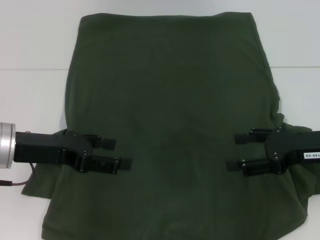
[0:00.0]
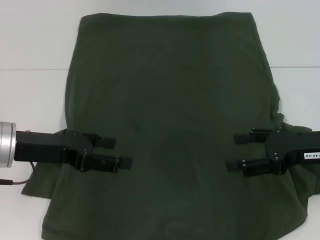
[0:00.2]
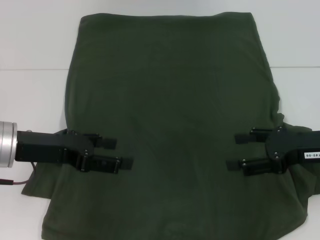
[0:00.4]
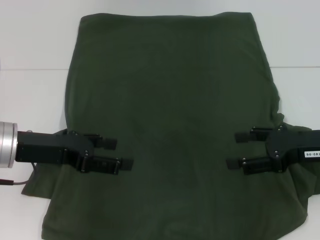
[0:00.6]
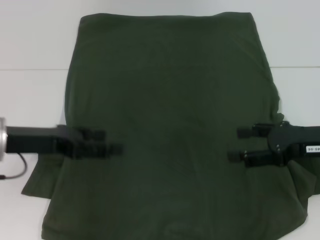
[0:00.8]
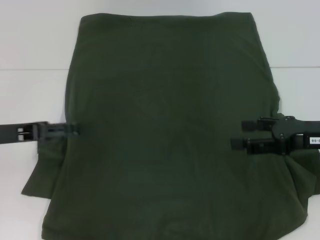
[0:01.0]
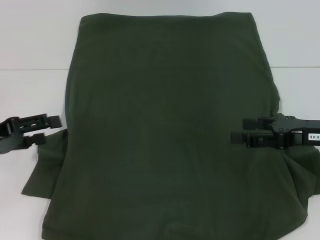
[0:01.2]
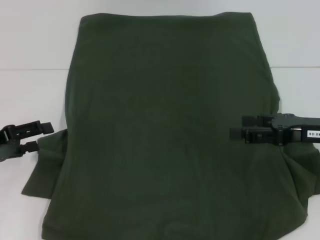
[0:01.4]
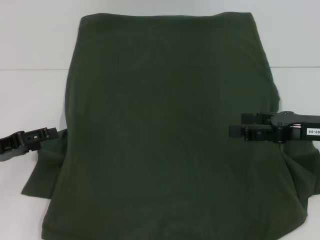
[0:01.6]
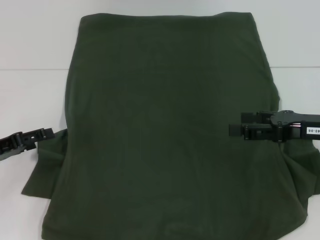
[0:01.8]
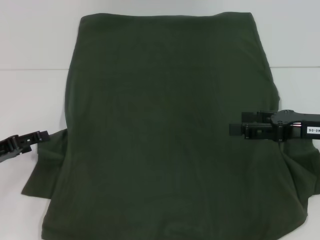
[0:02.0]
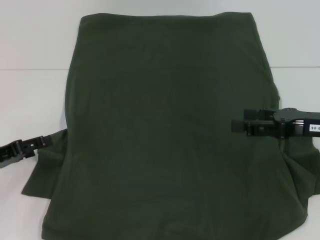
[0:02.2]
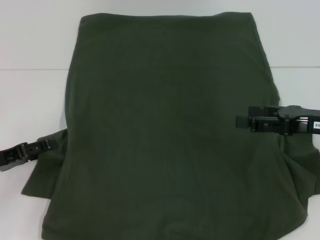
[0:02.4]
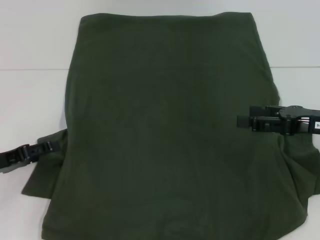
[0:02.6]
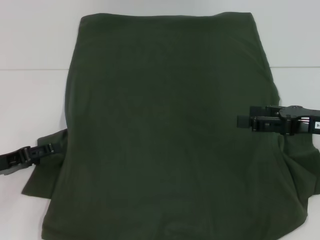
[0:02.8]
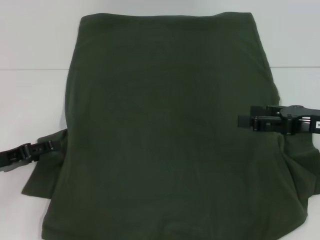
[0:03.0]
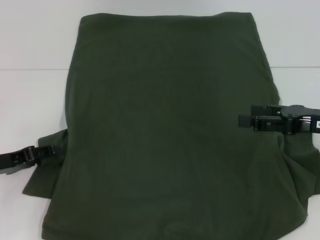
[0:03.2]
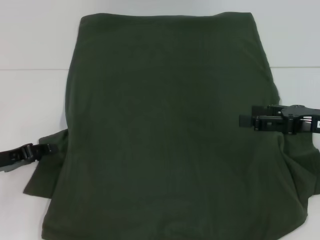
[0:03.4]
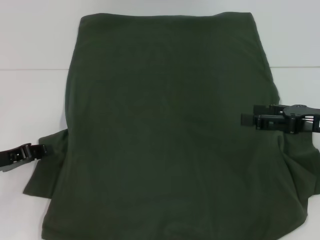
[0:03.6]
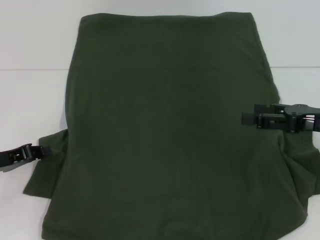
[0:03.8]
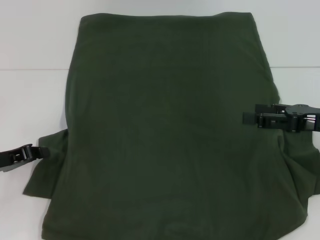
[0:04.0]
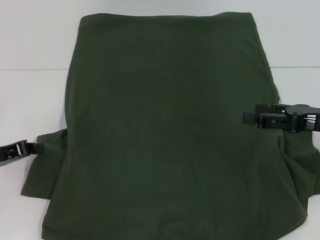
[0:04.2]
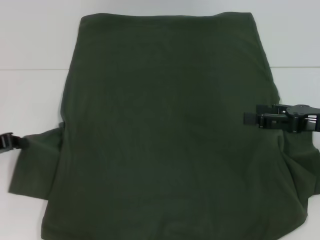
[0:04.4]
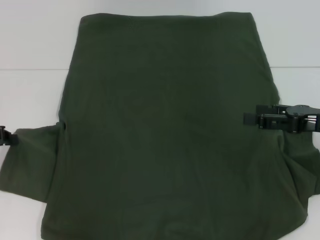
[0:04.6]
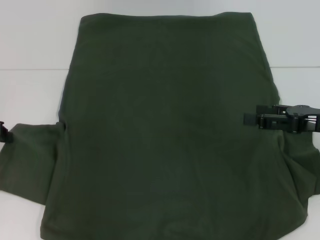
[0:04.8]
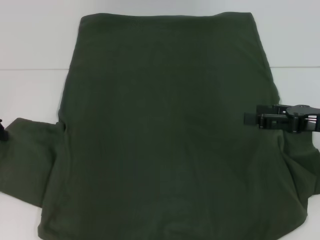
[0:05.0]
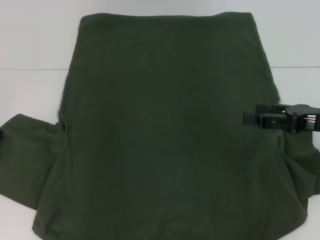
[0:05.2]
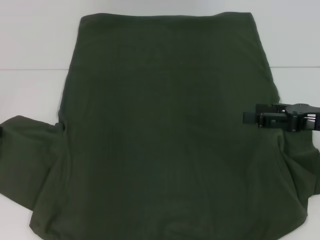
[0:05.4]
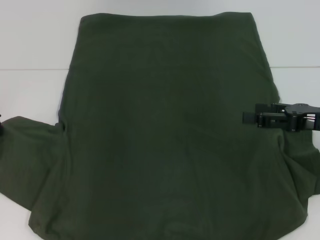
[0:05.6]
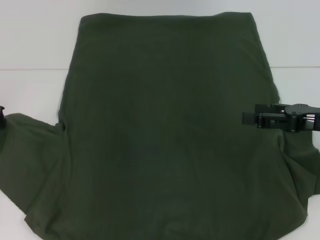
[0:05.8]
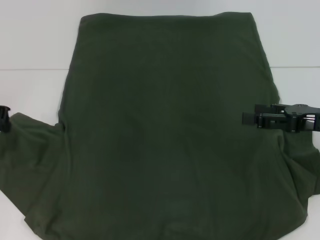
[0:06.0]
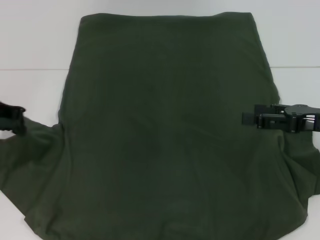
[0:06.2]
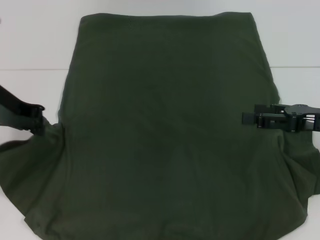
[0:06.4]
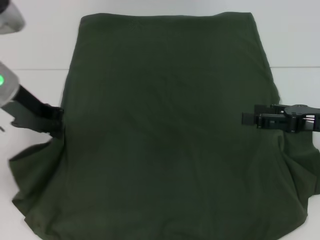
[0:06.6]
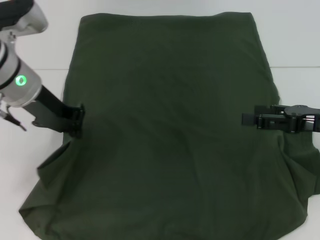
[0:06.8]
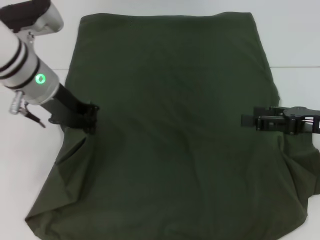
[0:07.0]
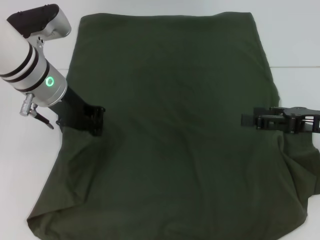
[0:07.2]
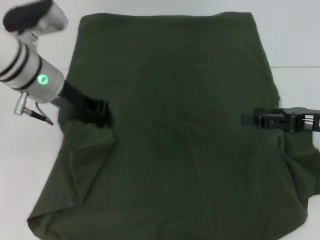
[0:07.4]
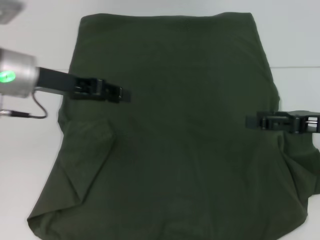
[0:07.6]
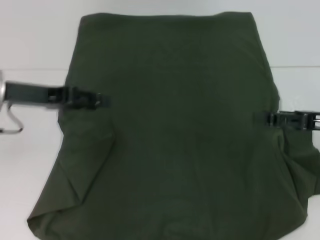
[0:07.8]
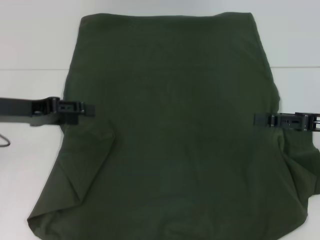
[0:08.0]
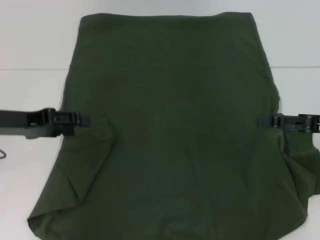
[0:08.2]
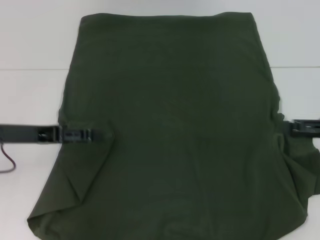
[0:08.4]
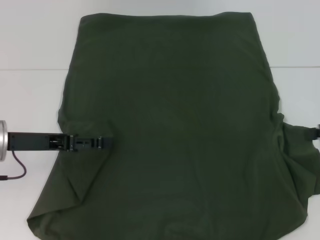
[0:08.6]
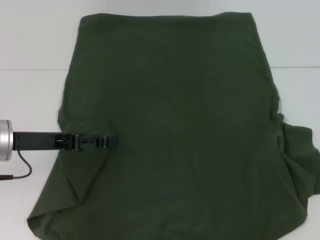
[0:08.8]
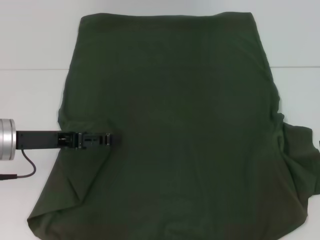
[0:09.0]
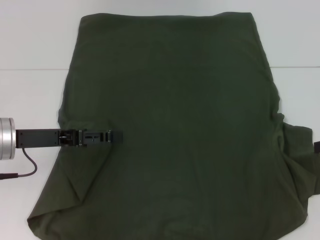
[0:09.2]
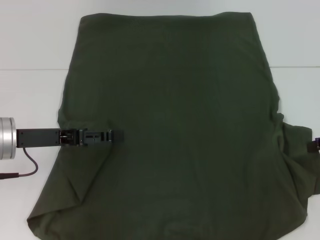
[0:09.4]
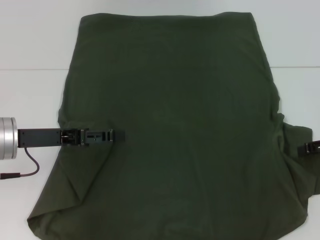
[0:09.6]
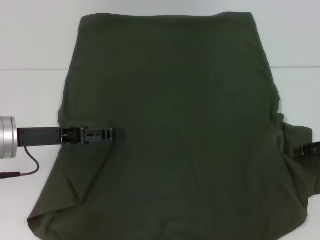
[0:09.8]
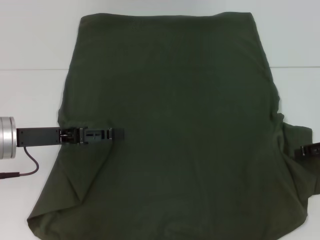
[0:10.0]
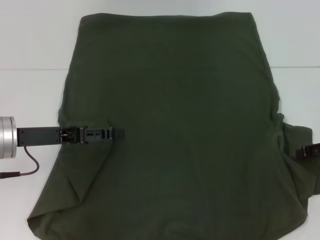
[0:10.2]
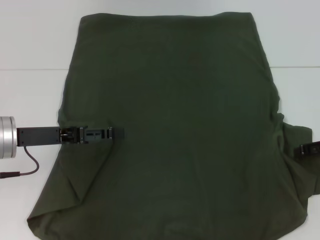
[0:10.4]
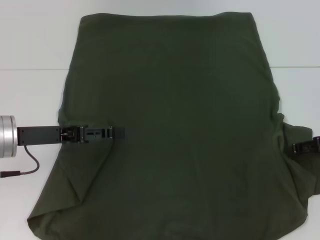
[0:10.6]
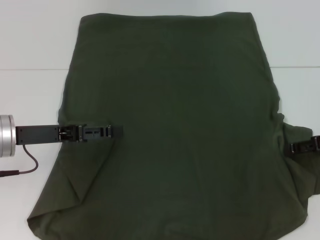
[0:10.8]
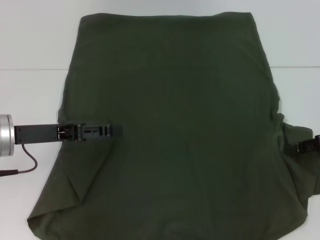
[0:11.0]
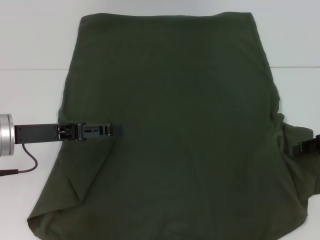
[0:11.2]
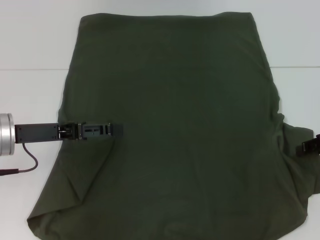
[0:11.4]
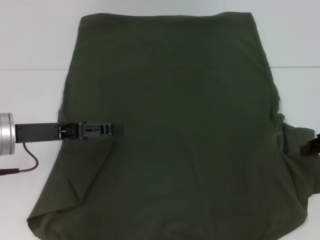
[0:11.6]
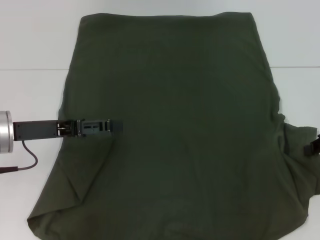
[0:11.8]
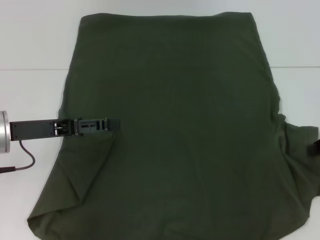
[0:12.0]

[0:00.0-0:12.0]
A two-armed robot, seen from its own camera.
Step, 0:00.0 to 0:07.6: Fold the bottom left sleeve with your left hand.
0:00.0 to 0:01.6: The left gripper heads to the left and downward, covering about 10 cm.
0:01.6 to 0:03.0: The grippers move only a little.
0:03.0 to 0:04.4: The left gripper closes up.
0:04.4 to 0:06.0: The left gripper goes some 10 cm upward and forward.
0:06.0 to 0:07.6: The left gripper is displaced to the right by roughly 10 cm.
0:07.6 to 0:09.0: The left gripper is displaced downward and backward by approximately 10 cm, and opens. The right gripper moves to the right, approximately 10 cm.
0:10.4 to 0:12.0: The right gripper closes its fingers.

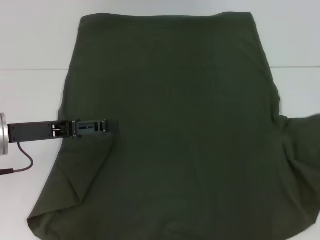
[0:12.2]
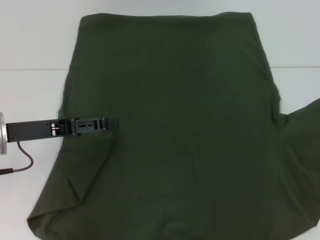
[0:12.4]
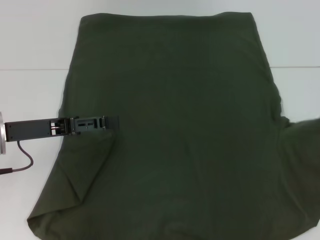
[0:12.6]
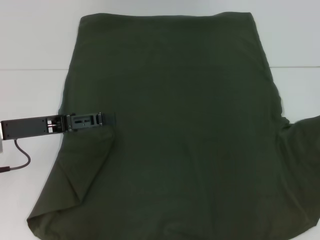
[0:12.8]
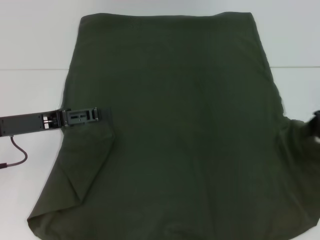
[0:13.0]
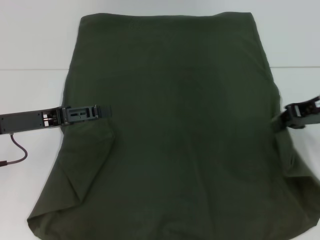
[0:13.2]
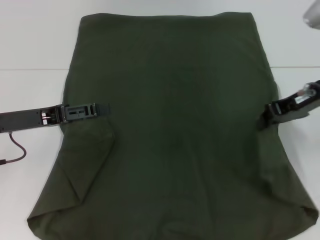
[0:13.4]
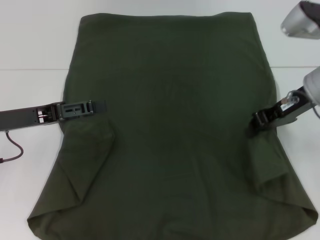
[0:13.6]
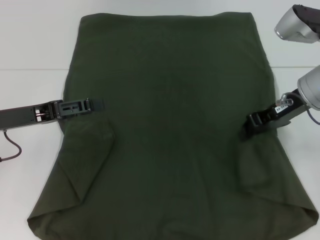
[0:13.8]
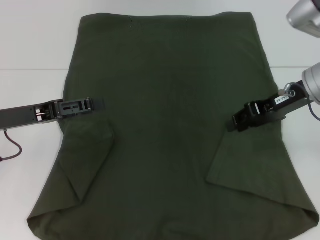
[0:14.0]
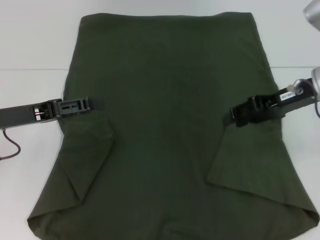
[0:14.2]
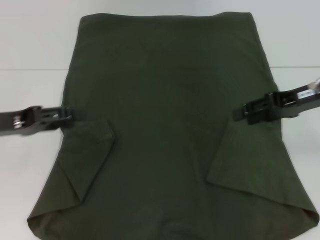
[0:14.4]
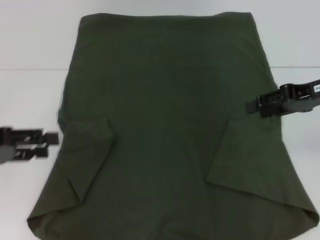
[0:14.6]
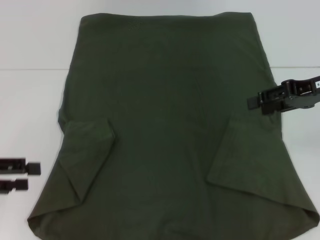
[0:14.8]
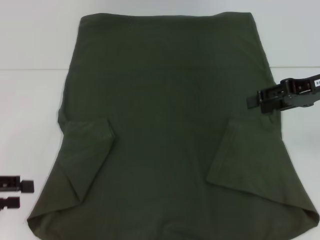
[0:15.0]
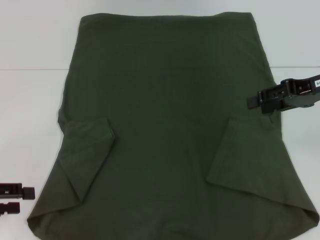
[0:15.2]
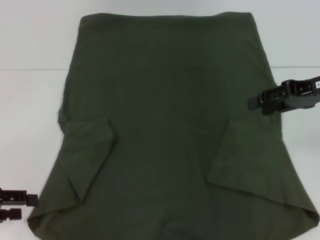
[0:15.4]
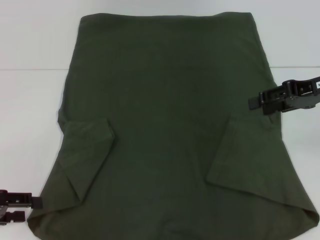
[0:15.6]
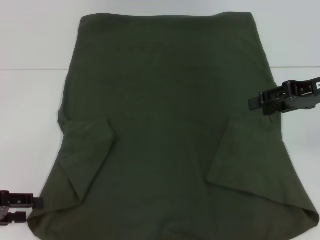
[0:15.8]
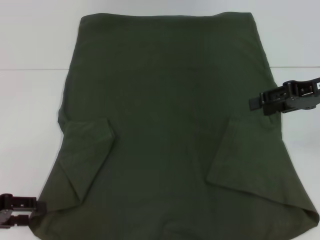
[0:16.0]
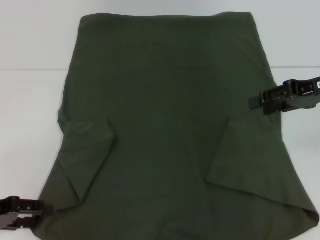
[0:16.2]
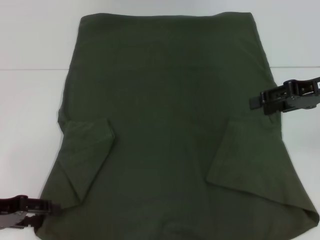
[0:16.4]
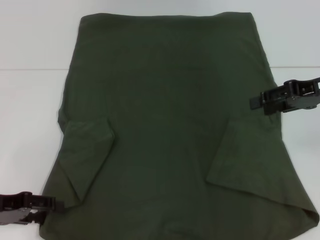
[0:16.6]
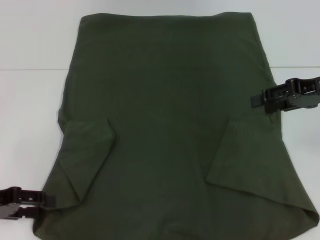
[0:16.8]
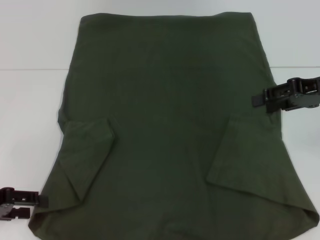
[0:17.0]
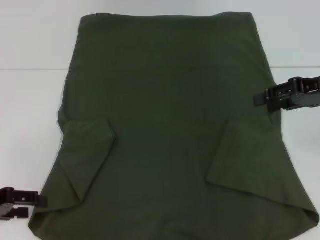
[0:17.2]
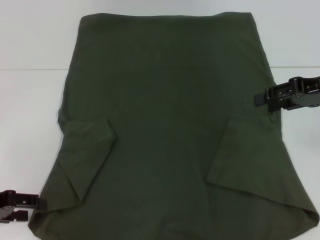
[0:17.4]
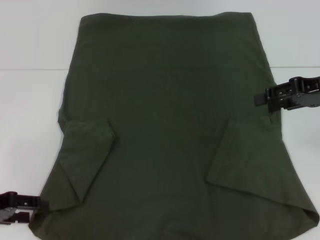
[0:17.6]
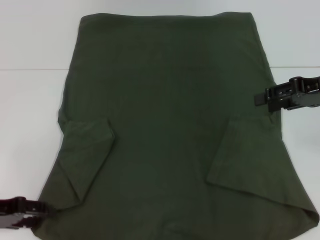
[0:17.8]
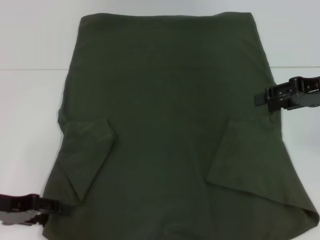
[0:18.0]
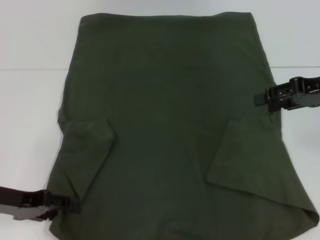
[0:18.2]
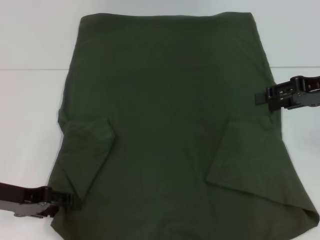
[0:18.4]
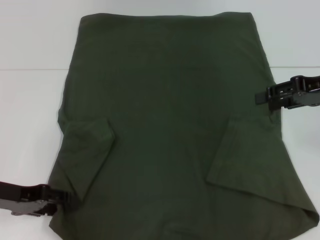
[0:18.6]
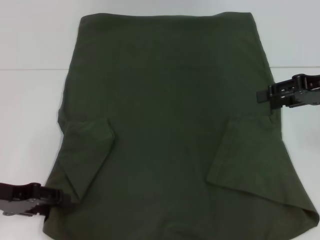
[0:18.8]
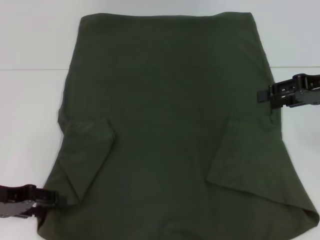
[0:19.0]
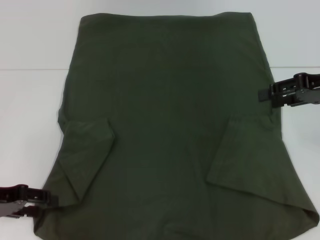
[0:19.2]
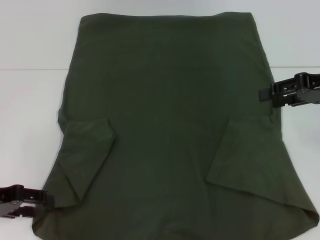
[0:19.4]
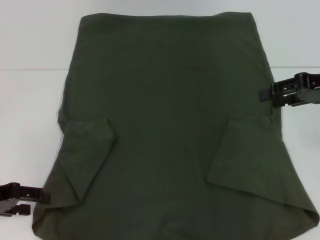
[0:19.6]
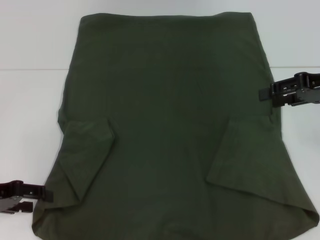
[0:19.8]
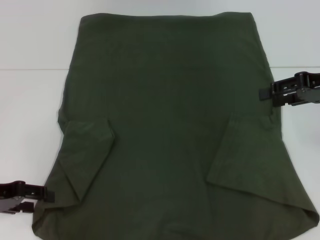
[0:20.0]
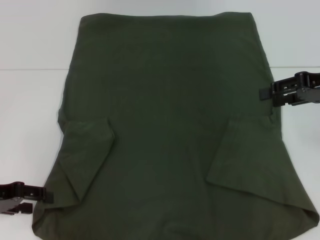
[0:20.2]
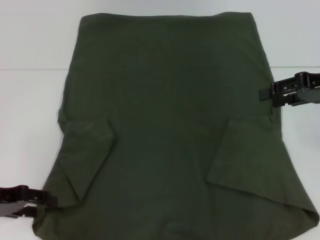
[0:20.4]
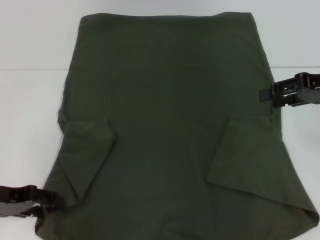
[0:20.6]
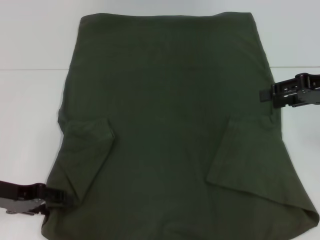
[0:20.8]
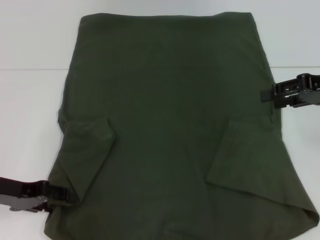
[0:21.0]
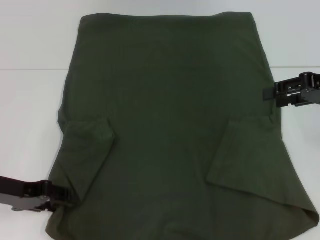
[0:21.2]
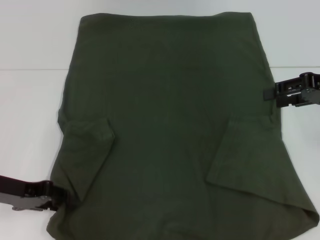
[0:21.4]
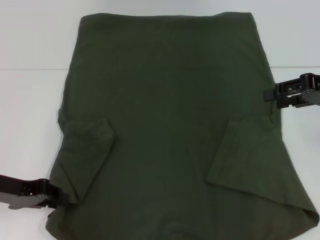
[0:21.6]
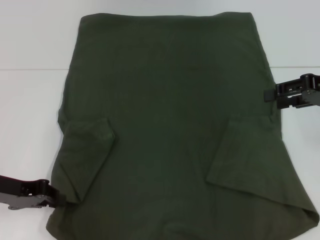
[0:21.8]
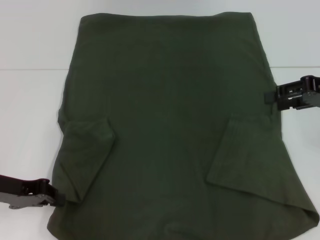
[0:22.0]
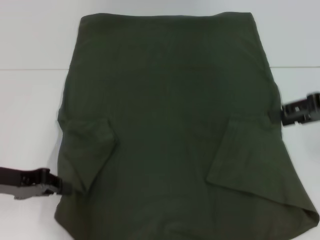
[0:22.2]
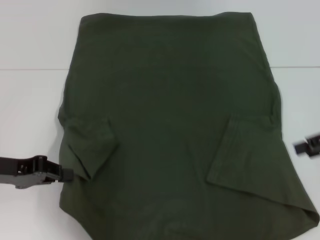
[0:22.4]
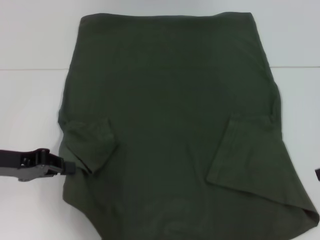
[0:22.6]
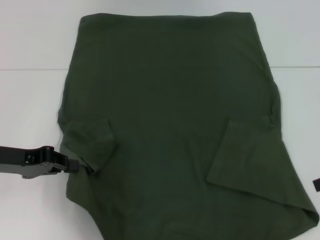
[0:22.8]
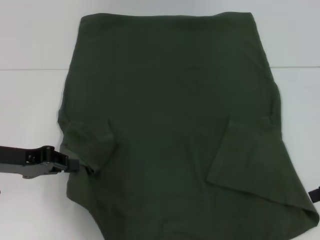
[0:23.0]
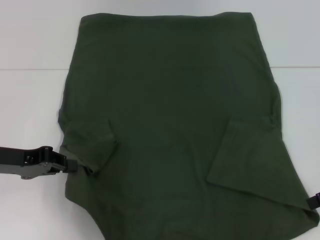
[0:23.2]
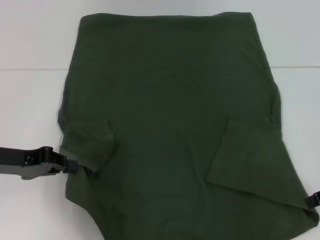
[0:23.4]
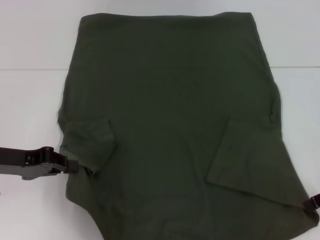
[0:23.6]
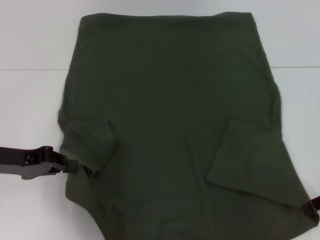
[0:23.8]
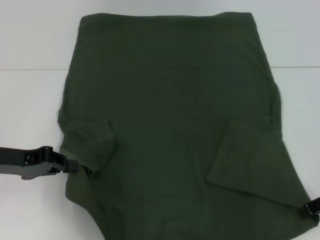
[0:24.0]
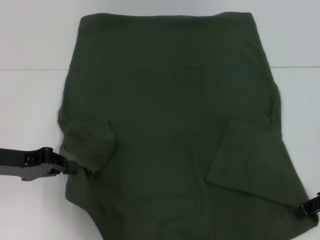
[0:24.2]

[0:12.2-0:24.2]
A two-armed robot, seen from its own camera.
Step, 0:14.2 to 0:22.0: Grab the bottom left corner with your left hand.
0:12.2 to 0:13.8: The right gripper shifts roughly 15 cm to the left.
0:13.8 to 0:15.2: The right gripper heads to the right, covering approximately 5 cm, and opens up. The left gripper is displaced to the left and backward by some 10 cm.
0:15.2 to 0:16.6: The left gripper changes place by about 5 cm.
0:16.6 to 0:21.2: There are only small adjustments of the grippers.
0:21.2 to 0:22.6: The right gripper travels backward and to the right by some 10 cm. The left gripper closes.
